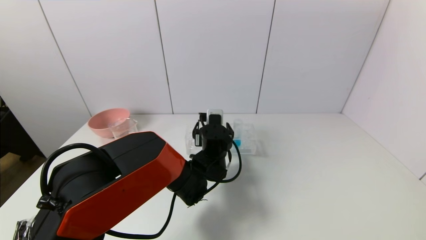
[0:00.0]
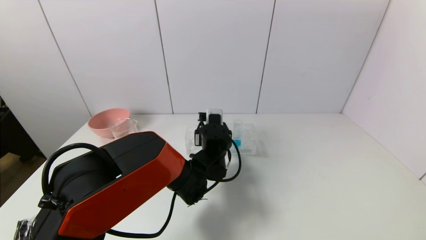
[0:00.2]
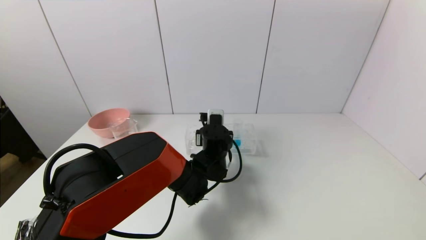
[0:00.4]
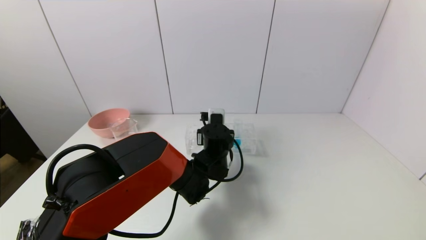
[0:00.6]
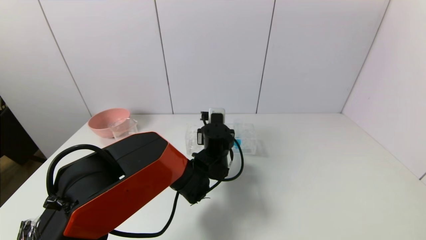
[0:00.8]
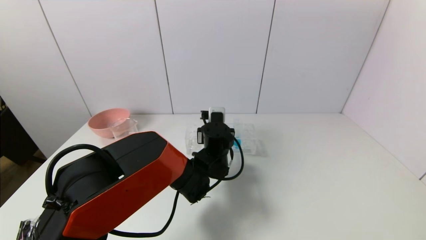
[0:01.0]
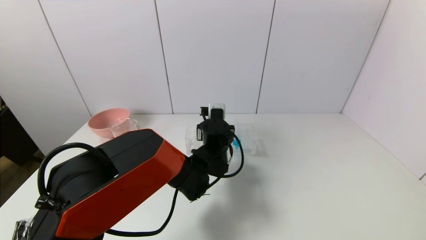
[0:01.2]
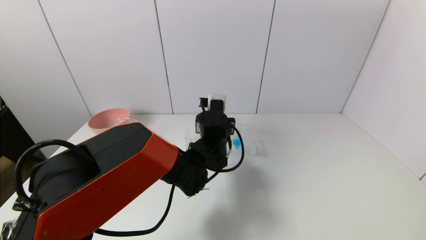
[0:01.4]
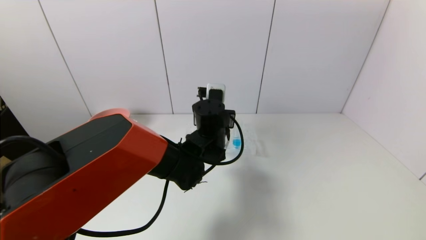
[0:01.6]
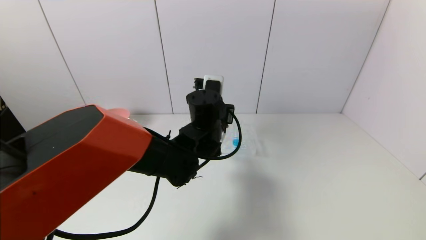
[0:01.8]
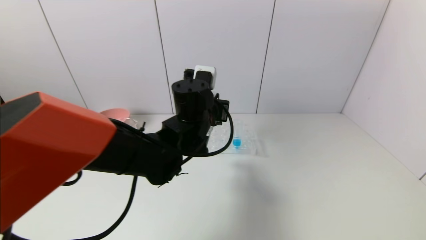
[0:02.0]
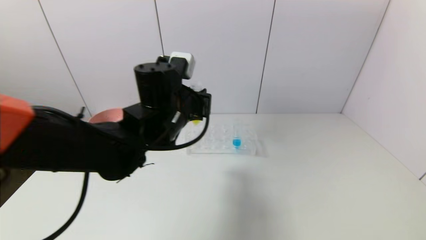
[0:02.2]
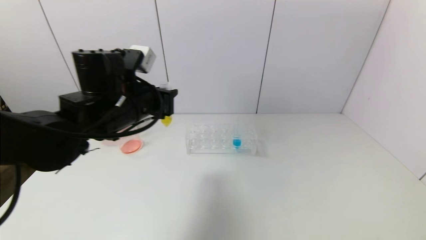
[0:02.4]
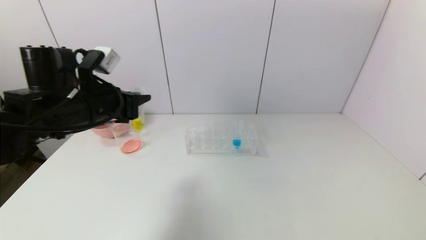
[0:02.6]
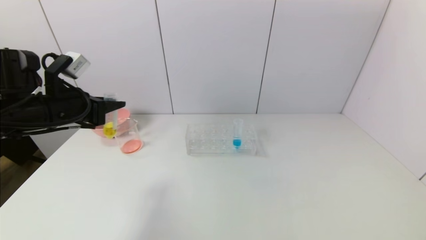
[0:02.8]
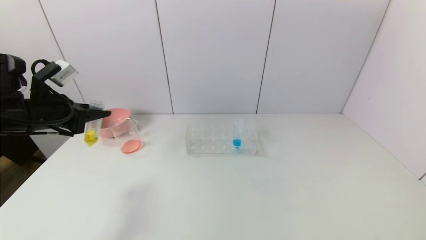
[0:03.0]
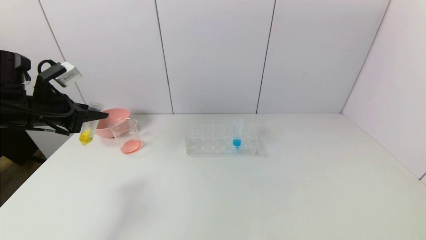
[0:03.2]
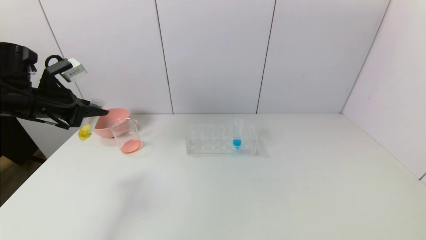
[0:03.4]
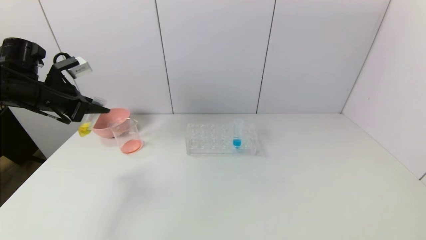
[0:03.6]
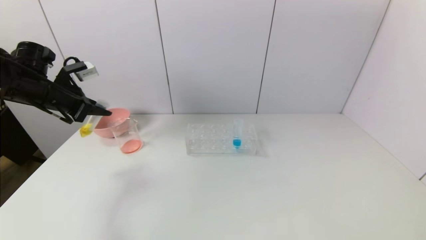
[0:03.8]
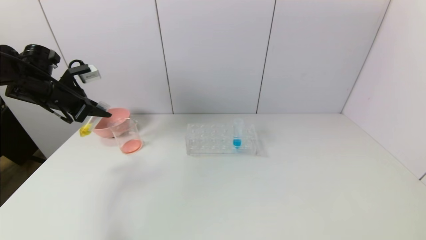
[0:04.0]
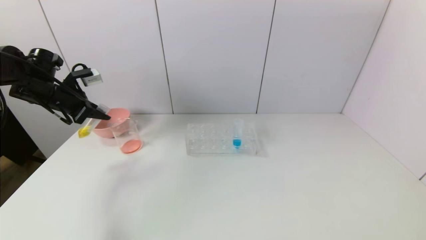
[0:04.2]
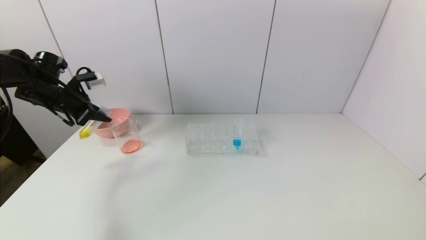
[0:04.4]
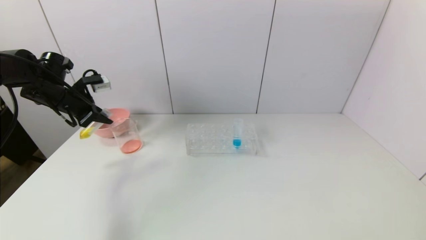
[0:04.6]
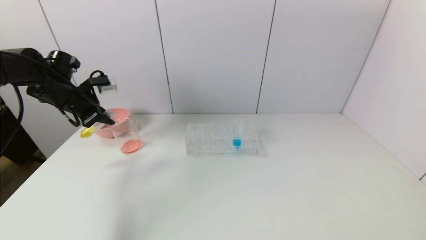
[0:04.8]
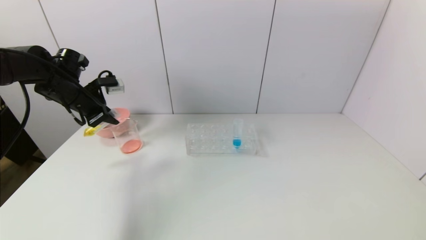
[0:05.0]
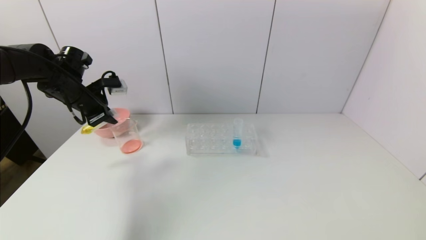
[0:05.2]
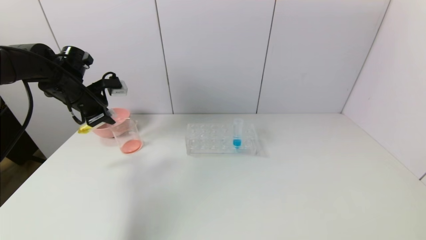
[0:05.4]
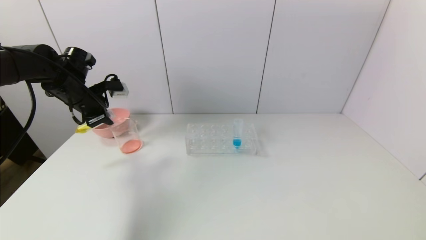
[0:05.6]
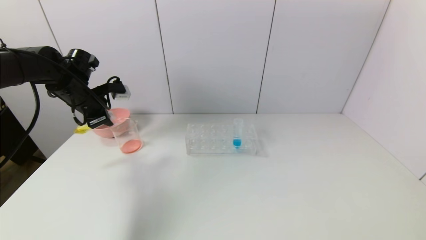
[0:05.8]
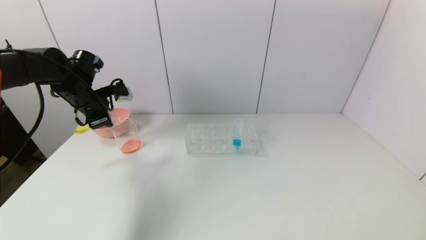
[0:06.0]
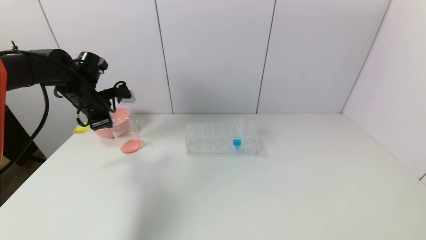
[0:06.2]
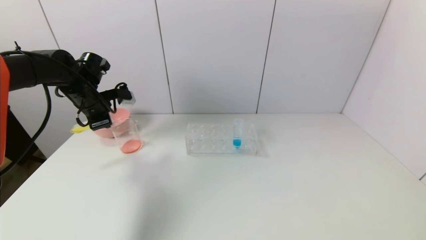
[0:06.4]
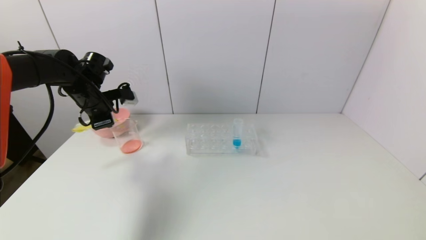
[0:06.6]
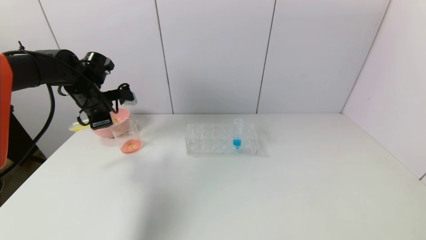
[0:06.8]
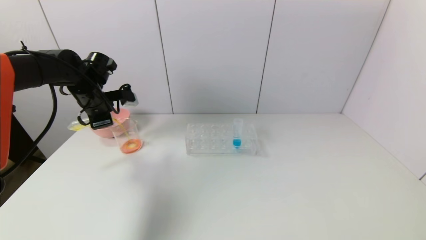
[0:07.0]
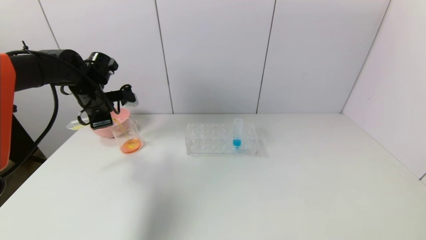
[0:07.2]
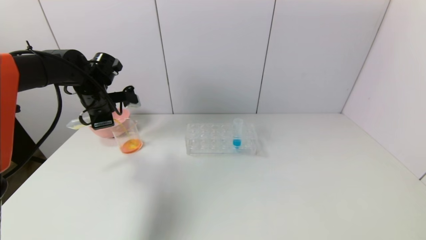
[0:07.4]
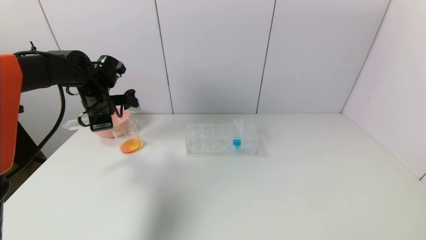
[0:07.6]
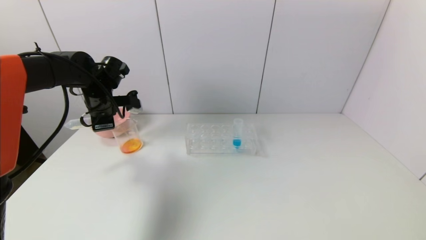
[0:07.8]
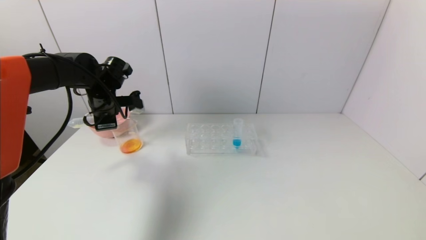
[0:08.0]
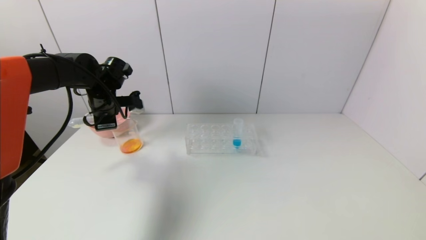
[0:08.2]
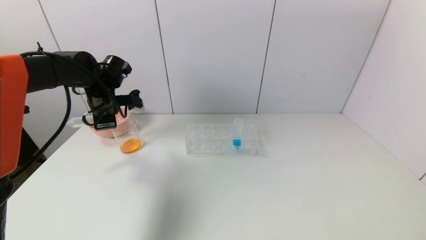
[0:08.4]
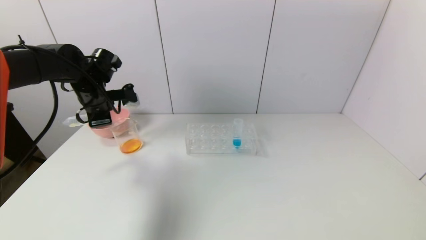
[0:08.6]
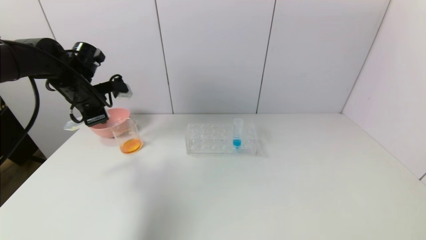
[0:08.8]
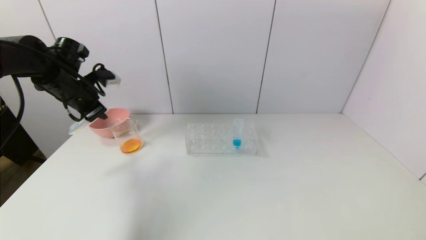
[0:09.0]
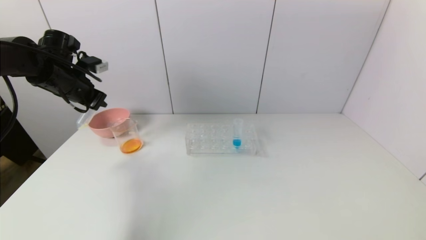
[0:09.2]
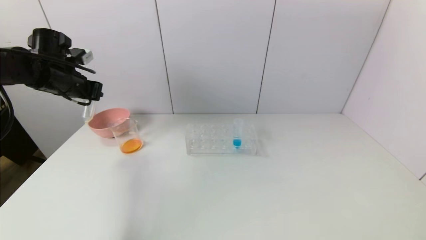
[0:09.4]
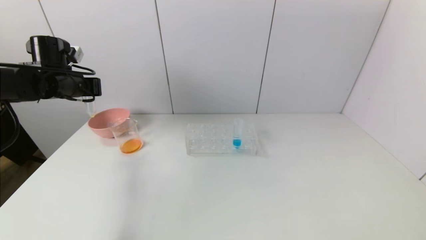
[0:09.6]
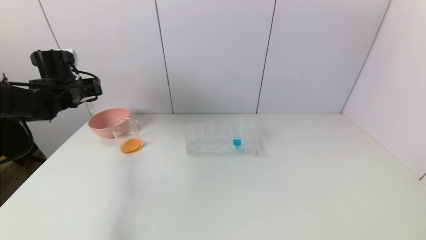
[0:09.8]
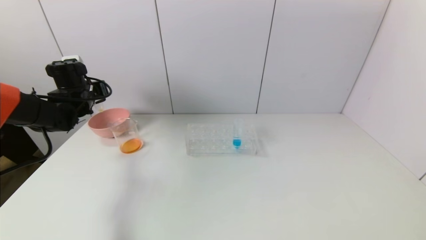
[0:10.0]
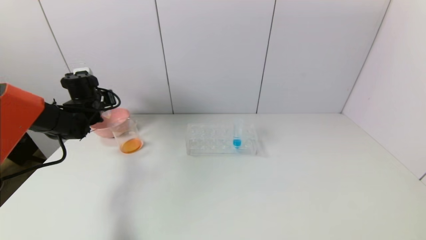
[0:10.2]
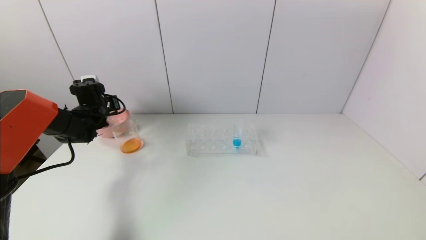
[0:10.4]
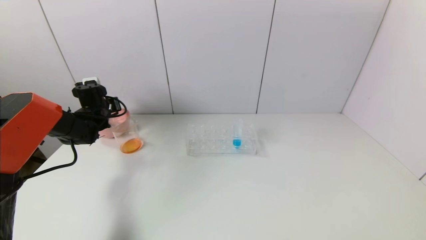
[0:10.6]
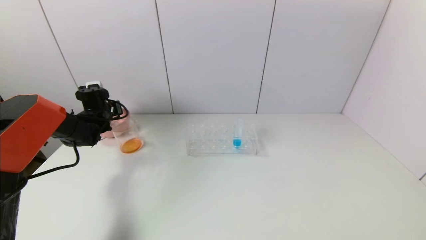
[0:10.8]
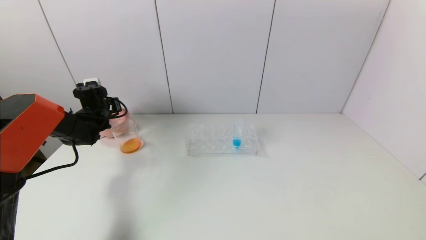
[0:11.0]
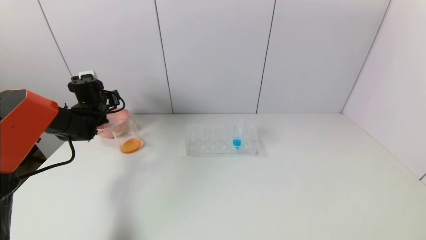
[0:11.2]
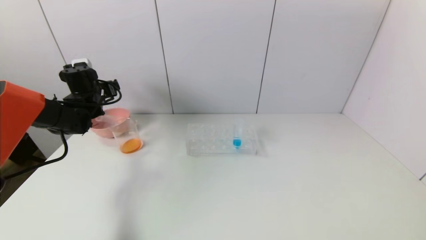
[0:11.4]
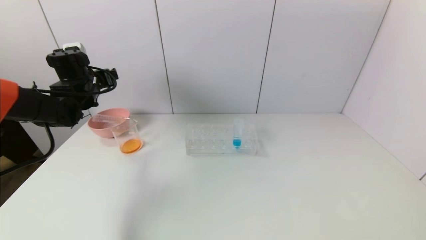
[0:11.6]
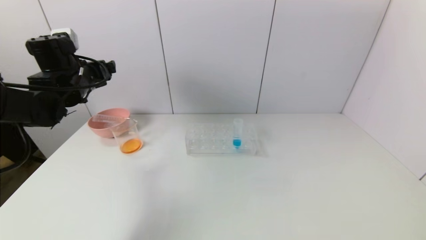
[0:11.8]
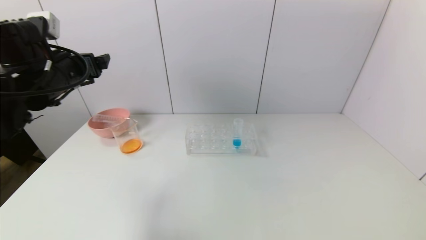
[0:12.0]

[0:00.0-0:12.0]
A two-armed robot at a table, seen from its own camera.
Task of the whole recording: pick up the test tube with yellow pigment and the test tube with red pigment by grippers and pour them into the beaker.
Step, 0:01.0 to 0:08.0: Pour the yellow reagent into the graduated cylinder with the left gripper.
Step, 0:08.2 to 0:11.0: Place the test tube into the pink bowl with the left gripper.
0:00.0 to 0:01.6: The left gripper goes approximately 5 cm upward, and closes up.
0:01.6 to 0:03.0: The left gripper goes about 35 cm to the left.
0:03.0 to 0:04.4: The left gripper travels forward by approximately 10 cm.
0:04.4 to 0:06.0: The left gripper goes roughly 5 cm to the right.
0:07.6 to 0:09.0: The left gripper moves approximately 5 cm.
0:09.0 to 0:10.4: The left gripper goes approximately 15 cm downward and forward.
0:10.4 to 0:12.0: The left gripper travels backward and upward by roughly 20 cm, and opens.

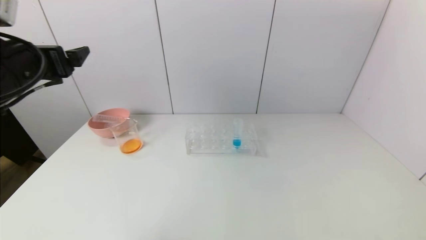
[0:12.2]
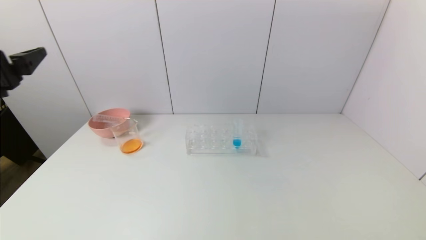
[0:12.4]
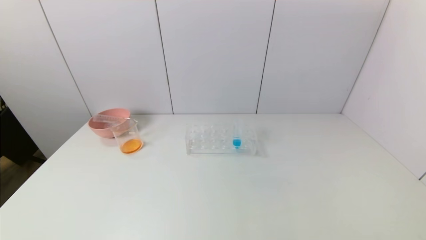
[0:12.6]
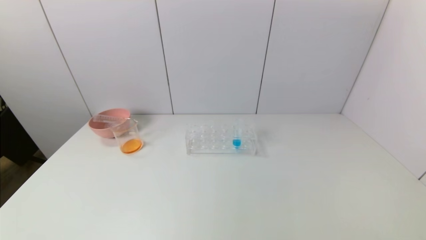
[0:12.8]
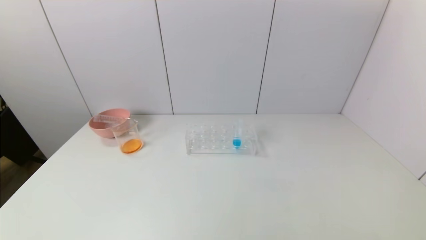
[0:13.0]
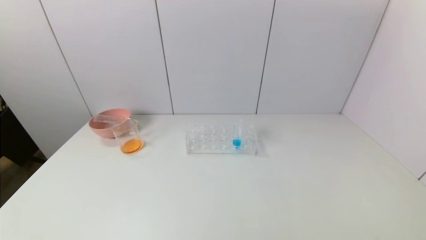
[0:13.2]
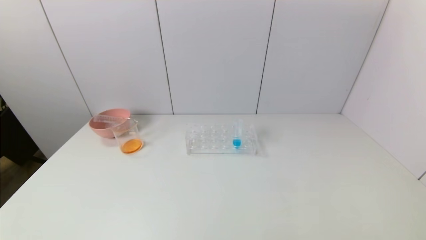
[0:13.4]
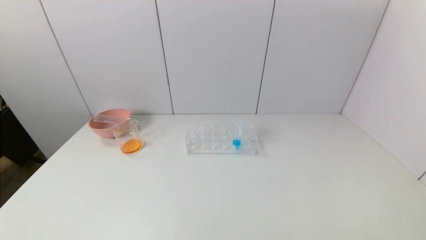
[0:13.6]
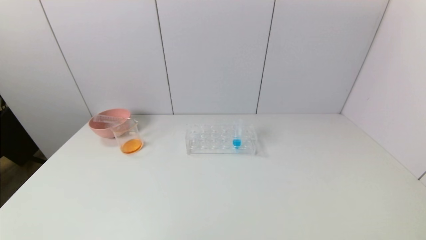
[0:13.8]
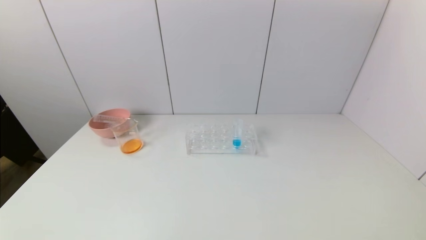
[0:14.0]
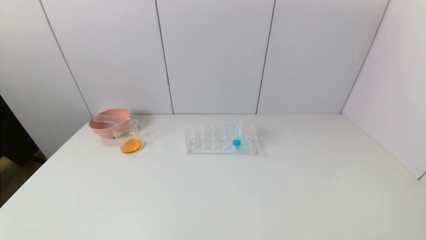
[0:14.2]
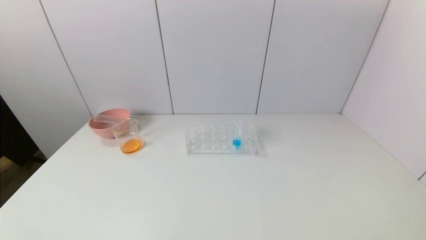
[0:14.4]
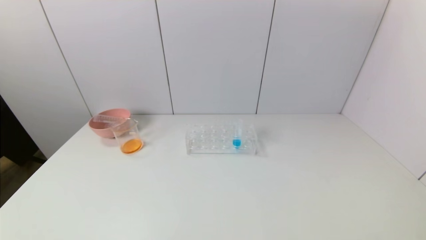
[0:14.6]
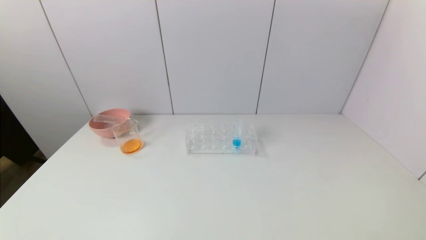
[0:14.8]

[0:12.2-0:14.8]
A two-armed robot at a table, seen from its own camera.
Task of the whole recording: pick up the test tube with yellow pigment and the test tube with red pigment by grippers and pour them into the beaker.
0:12.2 to 0:13.4: The left gripper travels backward by about 35 cm.
